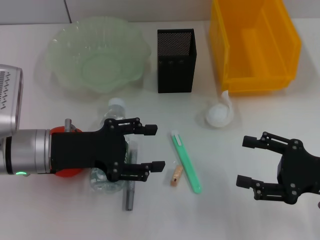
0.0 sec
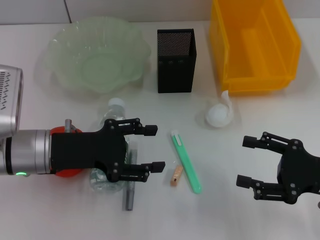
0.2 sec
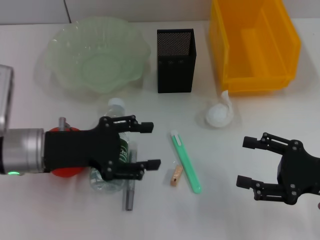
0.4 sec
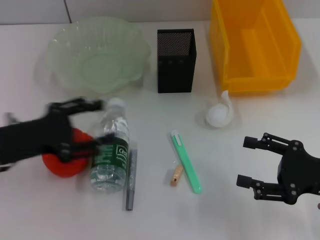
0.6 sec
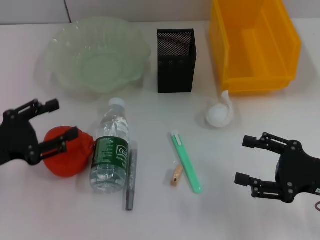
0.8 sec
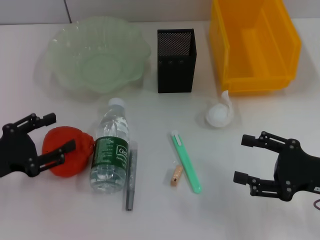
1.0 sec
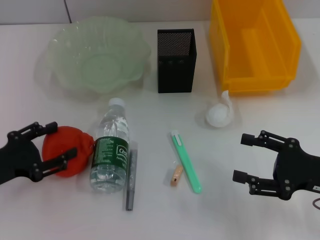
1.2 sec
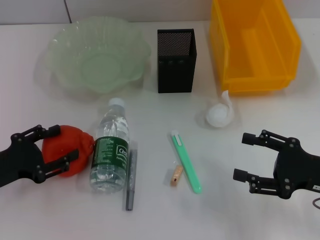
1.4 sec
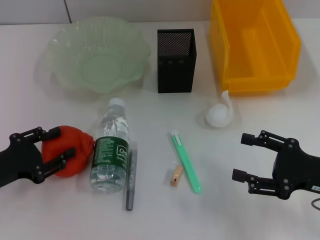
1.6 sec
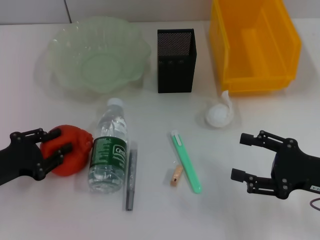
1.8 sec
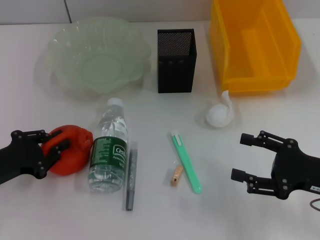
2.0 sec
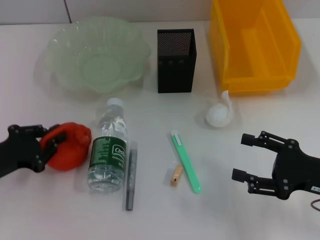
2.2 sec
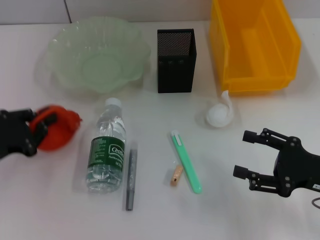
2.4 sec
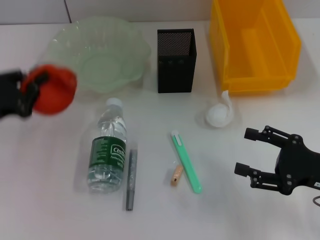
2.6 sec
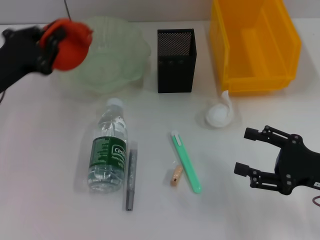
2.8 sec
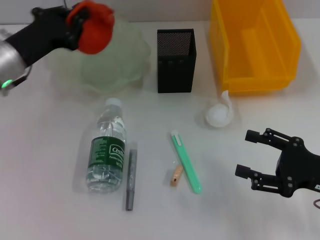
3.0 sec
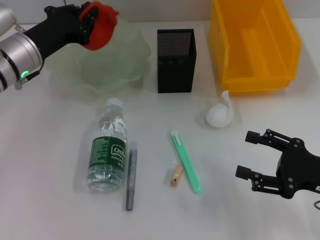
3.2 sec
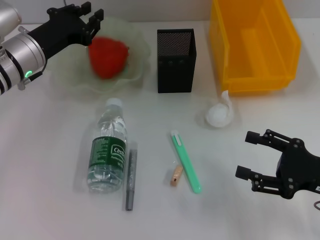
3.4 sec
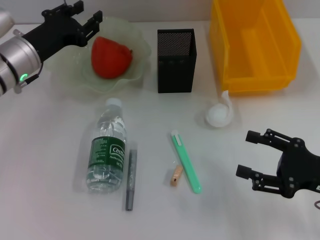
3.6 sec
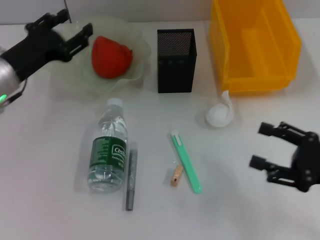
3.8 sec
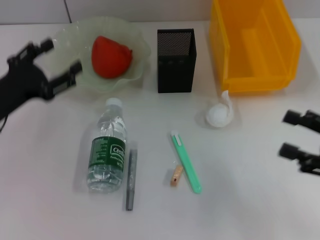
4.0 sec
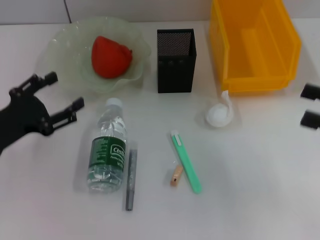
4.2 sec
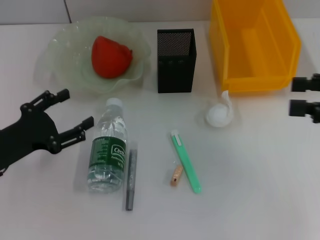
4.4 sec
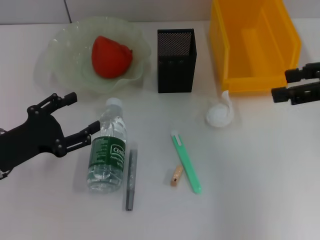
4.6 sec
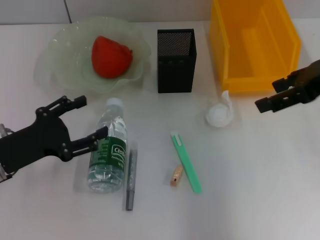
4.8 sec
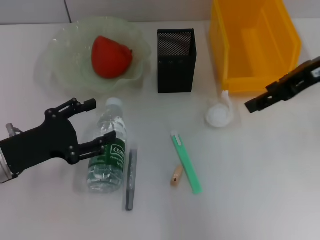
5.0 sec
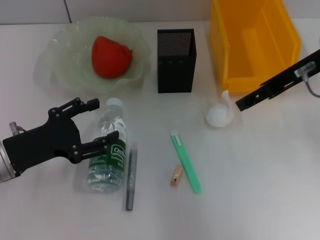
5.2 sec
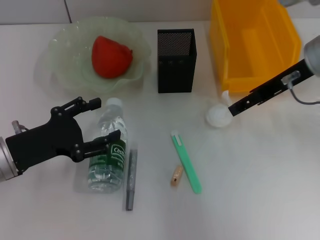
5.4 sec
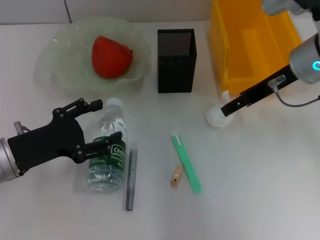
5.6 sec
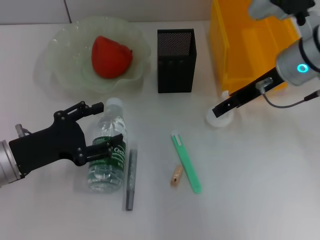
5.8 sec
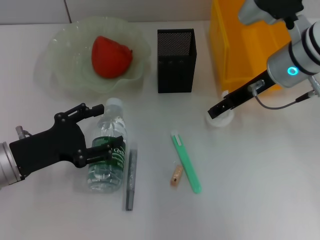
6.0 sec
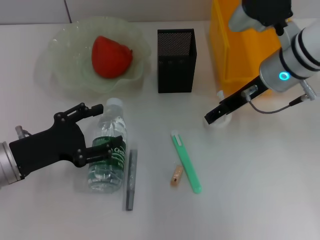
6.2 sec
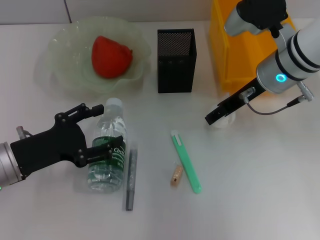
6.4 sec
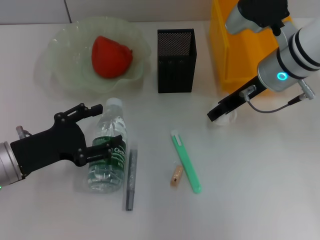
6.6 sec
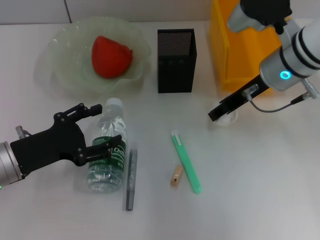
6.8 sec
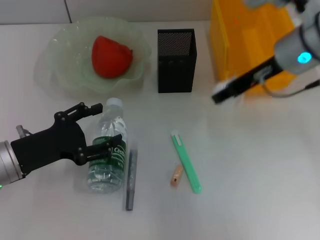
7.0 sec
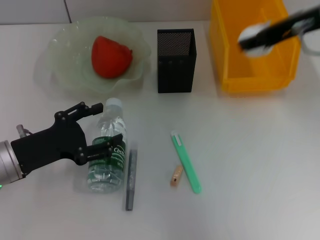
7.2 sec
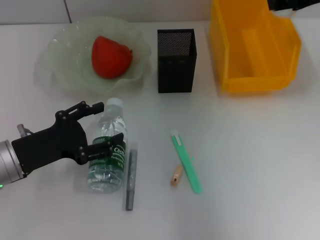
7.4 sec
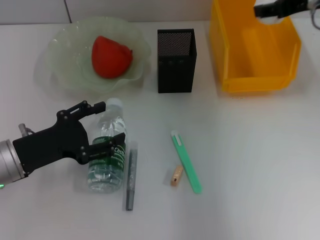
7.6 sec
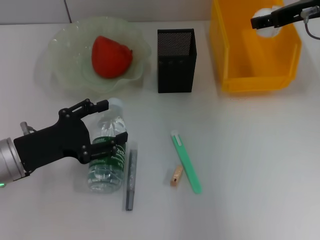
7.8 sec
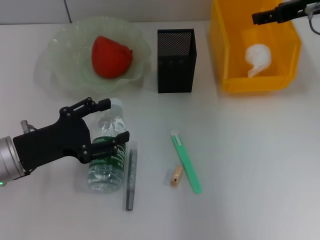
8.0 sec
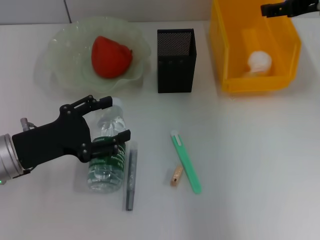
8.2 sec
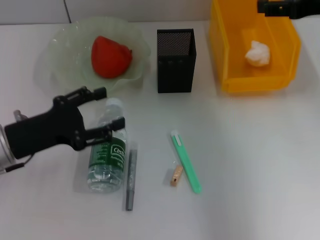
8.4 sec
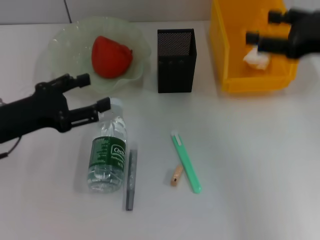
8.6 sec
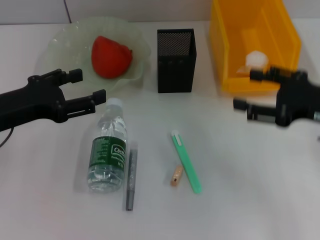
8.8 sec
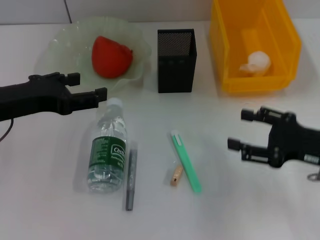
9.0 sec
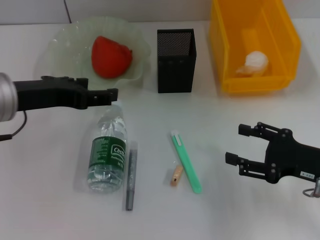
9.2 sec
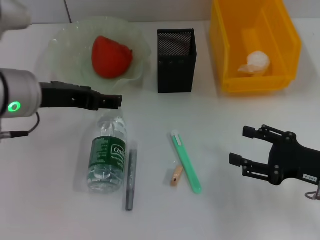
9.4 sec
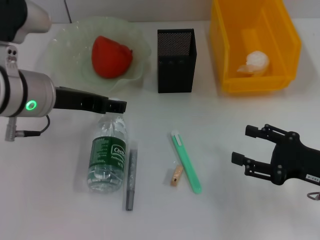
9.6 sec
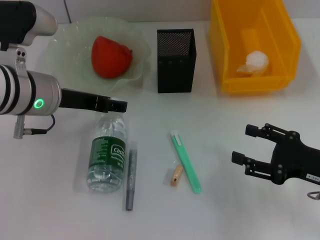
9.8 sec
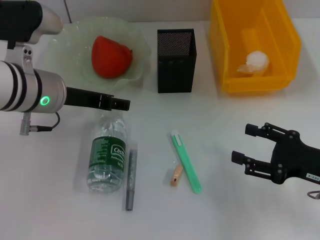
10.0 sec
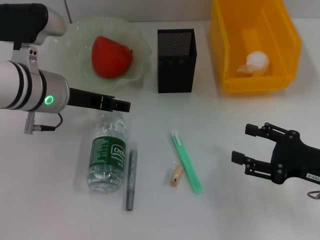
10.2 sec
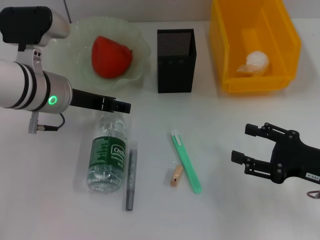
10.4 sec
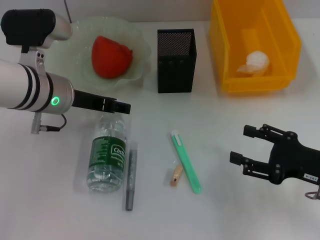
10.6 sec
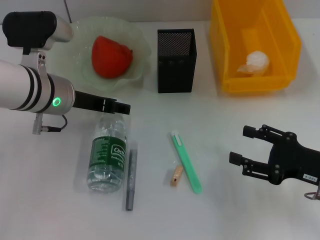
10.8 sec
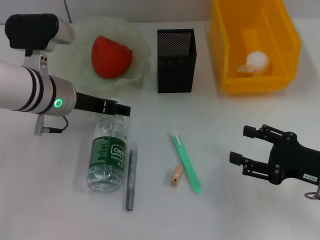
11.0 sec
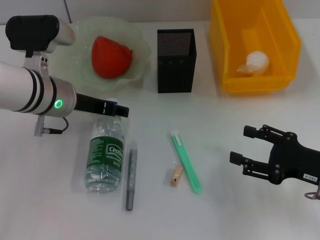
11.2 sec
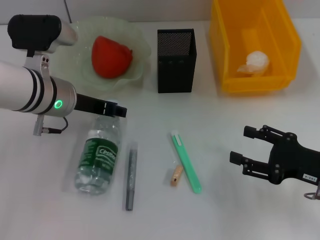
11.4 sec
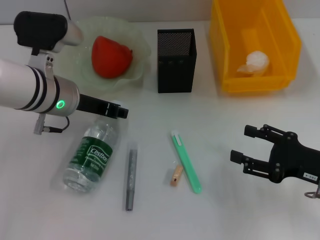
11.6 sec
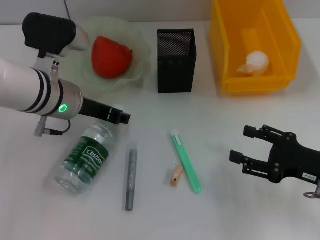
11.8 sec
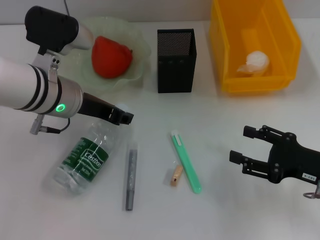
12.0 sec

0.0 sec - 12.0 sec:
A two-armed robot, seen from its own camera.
Step, 0.0 sec - 2.0 sec: Grab the orange with the left hand.
Step, 2.2 sec - 3.2 sec: Place the orange into the fruit bowl with the left hand.
Step, 3.4 sec - 6.6 sec: Grab the paper ball with the right hand.
Step, 6.8 sec - 8.0 sec: Place the paper ball into the trash can with the right hand.
Step, 8.2 sec - 12.0 sec: Grab the water bottle with the left hand.
0.0 sec - 1.6 sec: The left gripper shifts about 10 cm to the left and backward.
1.6 sec - 3.0 sec: The left gripper travels forward, upward and to the right by about 15 cm, and closes.
3.0 sec - 4.4 sec: The right gripper travels upward by about 15 cm. Meanwhile the left gripper moves backward and downward, some 15 cm, and opens.
4.4 sec - 6.0 sec: The right gripper goes roughly 20 cm to the left and forward.
6.0 sec - 7.6 sec: The right gripper travels upward and to the right by approximately 10 cm, and closes its fingers.
7.6 sec - 9.0 sec: The left gripper is displaced upward by approximately 10 cm; the right gripper heads backward and downward, covering some 20 cm, and opens its fingers.
9.0 sec - 10.4 sec: The left gripper shifts approximately 10 cm forward and to the right.
10.4 sec - 12.0 sec: The left gripper closes its fingers.

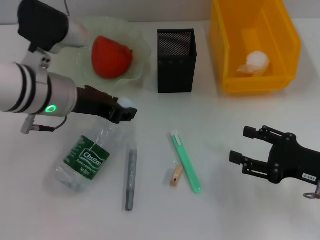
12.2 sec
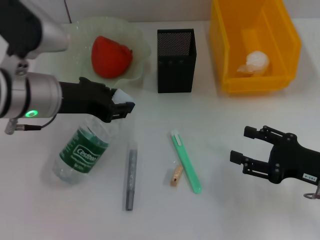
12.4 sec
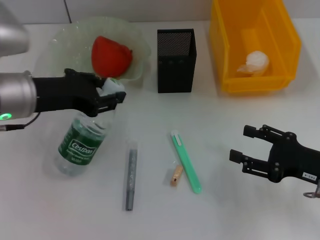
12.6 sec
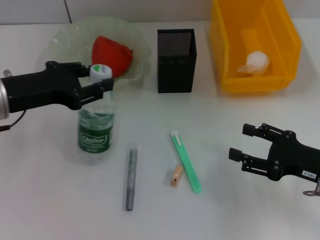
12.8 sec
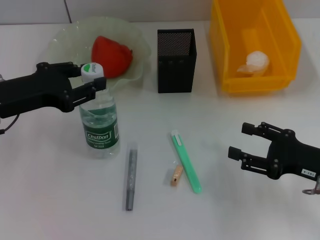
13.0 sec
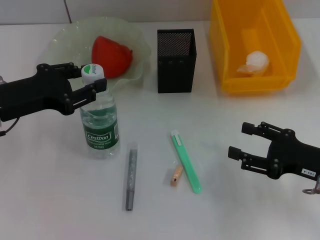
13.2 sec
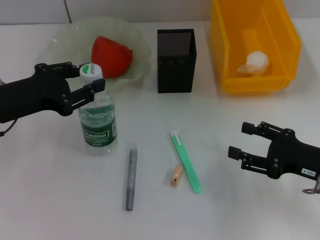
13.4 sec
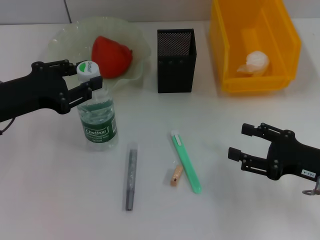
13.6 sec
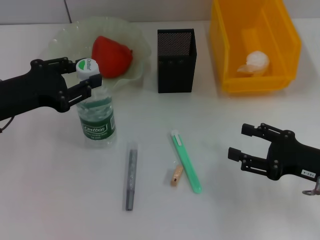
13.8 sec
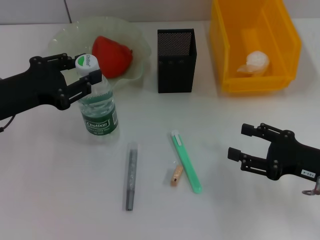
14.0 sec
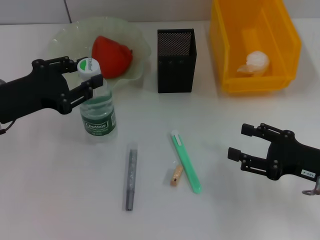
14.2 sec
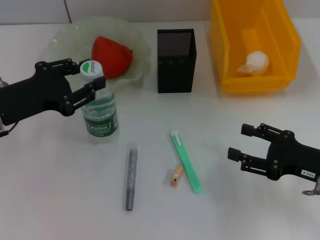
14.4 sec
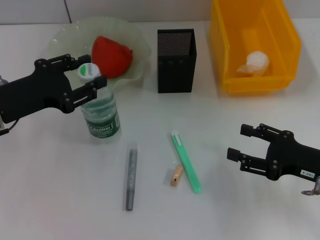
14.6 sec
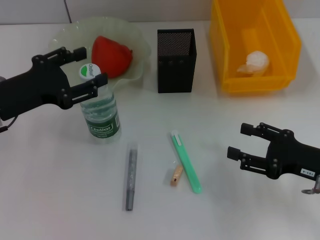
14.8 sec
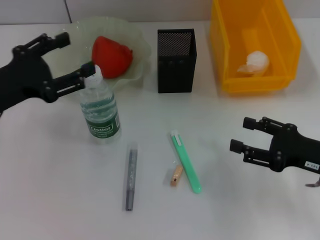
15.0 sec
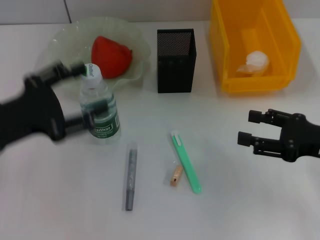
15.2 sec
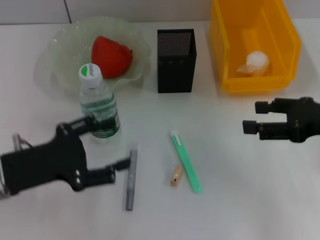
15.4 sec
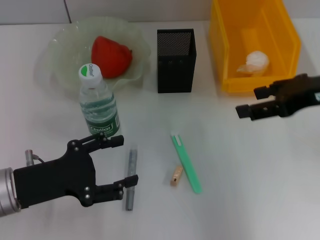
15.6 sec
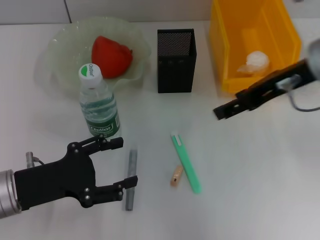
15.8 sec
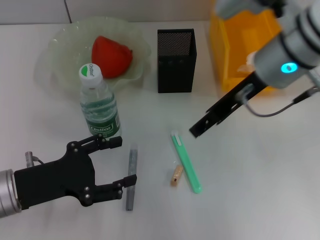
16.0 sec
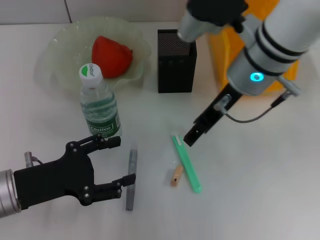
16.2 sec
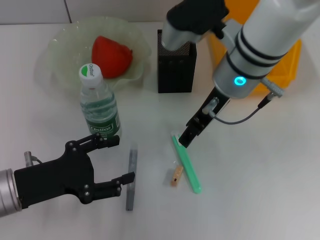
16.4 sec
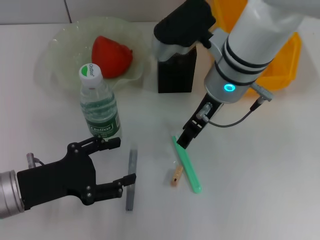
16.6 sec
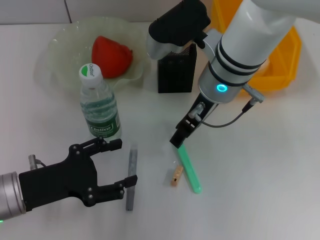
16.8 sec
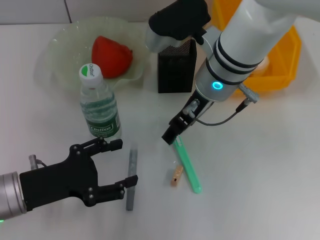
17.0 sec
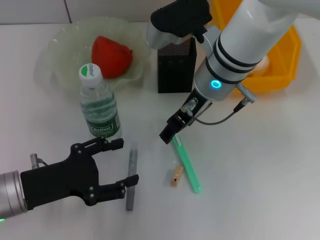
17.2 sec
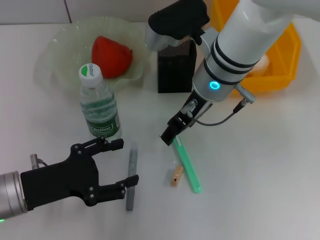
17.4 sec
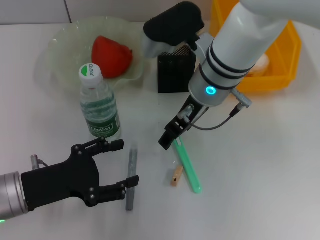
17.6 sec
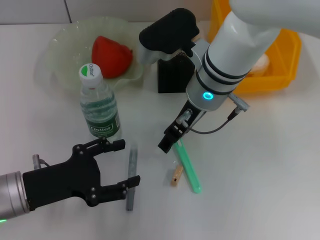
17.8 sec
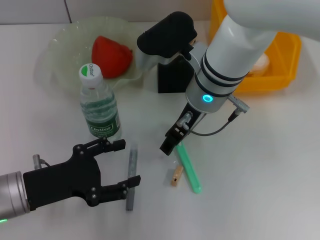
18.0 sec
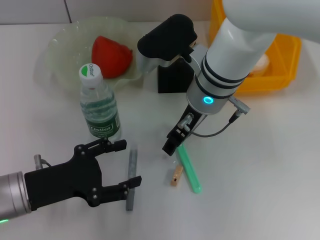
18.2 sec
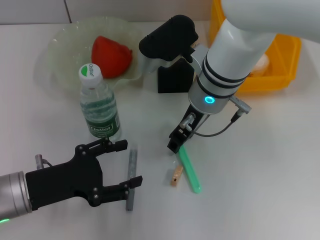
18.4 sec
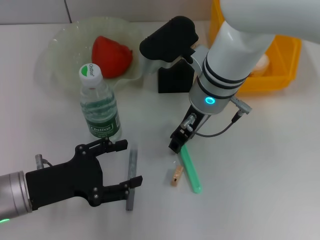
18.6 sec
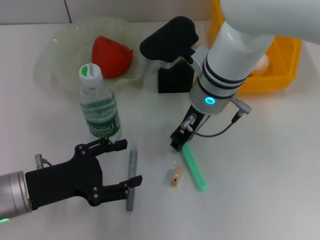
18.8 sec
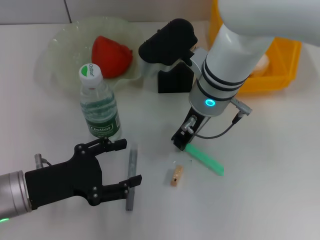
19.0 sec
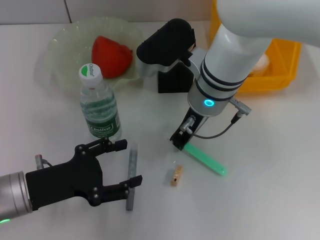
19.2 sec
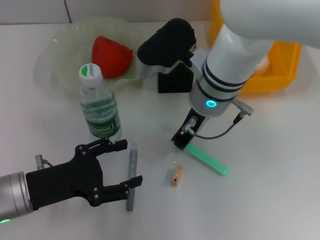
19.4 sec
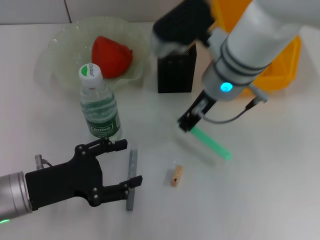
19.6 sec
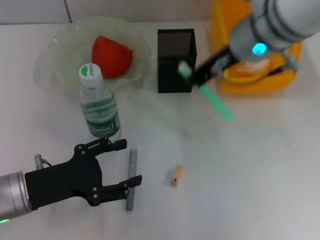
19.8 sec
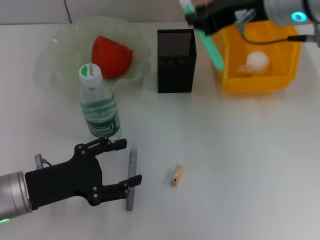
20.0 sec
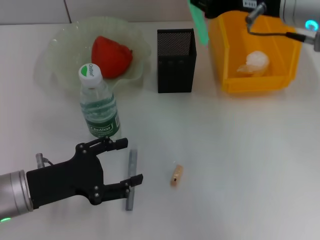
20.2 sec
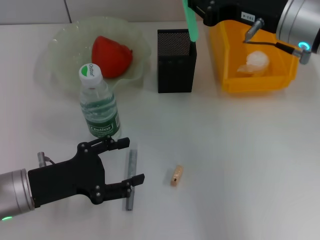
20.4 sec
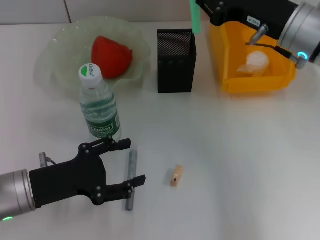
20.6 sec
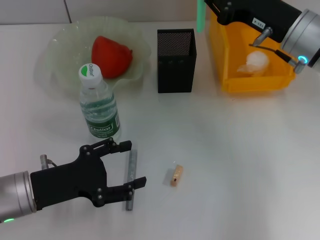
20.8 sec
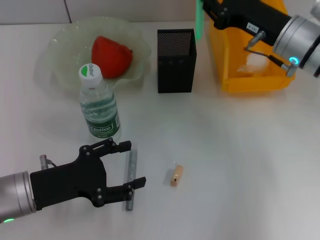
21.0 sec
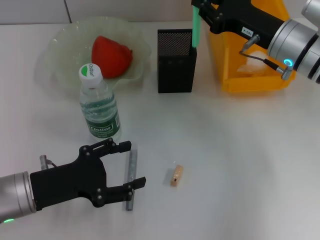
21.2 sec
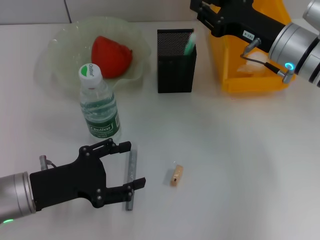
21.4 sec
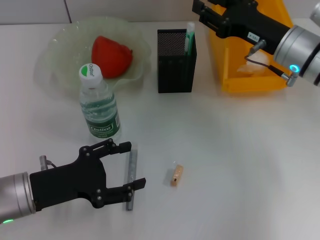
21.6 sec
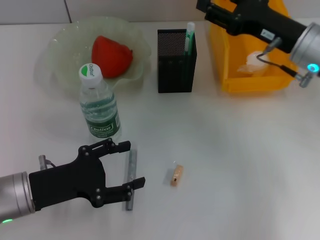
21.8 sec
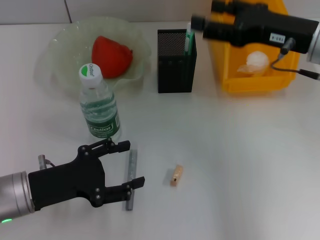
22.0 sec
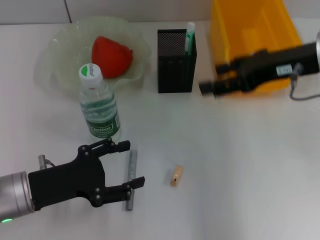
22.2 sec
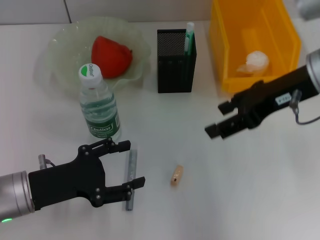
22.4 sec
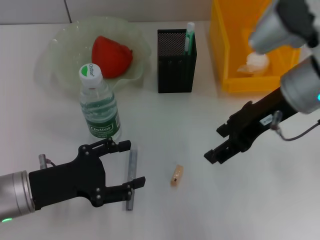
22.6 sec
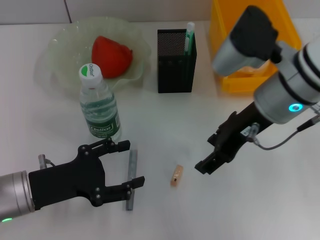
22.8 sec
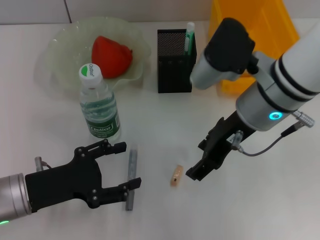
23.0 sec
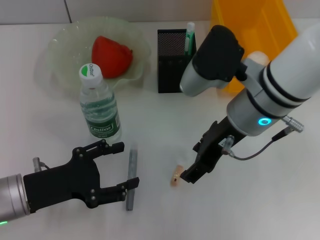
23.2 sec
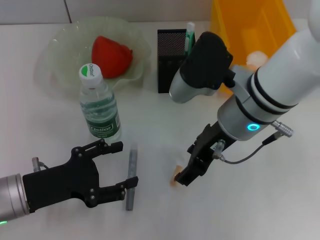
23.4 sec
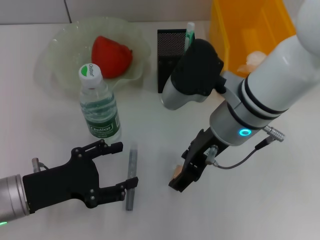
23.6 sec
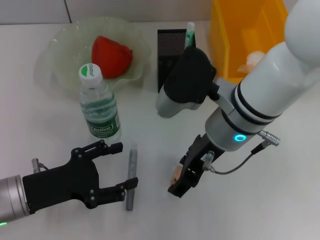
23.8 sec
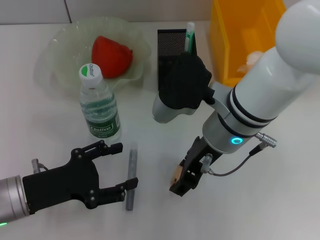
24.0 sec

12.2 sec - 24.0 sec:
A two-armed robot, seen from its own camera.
Step, 12.2 sec - 14.4 sec: Place the water bottle on the table with the left hand.
Step, 14.6 sec - 19.2 sec: Grab the blue utility knife with the right hand.
Step, 19.4 sec - 21.4 sec: Place the blue utility knife into the pen holder with the right hand.
12.2 sec - 13.6 sec: The left gripper moves to the left, approximately 10 cm.
13.6 sec - 15.2 sec: The left gripper opens.
15.2 sec - 16.6 sec: The right gripper goes about 25 cm to the left and forward; the left gripper shifts about 5 cm downward.
16.6 sec - 18.2 sec: The grippers move only a little.
18.2 sec - 19.6 sec: The right gripper closes its fingers.
19.6 sec - 21.0 sec: The right gripper moves to the right, approximately 15 cm, and goes upward and returns, some 10 cm each way.
21.0 sec - 22.6 sec: The right gripper heads upward and backward, covering about 10 cm, and opens.
22.6 sec - 24.0 sec: The right gripper is displaced to the left and downward by roughly 10 cm.
